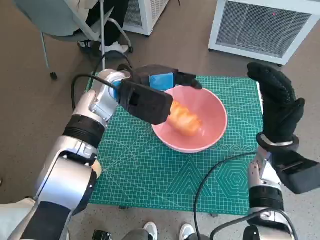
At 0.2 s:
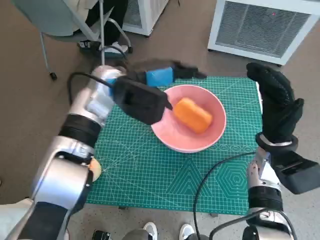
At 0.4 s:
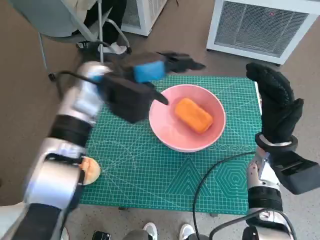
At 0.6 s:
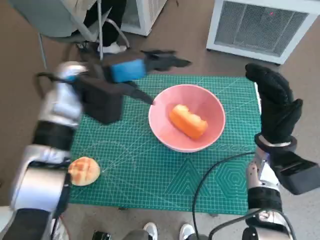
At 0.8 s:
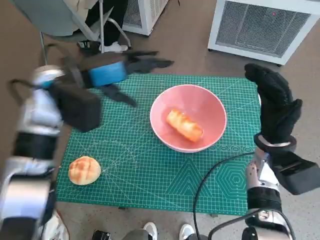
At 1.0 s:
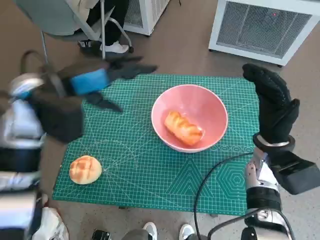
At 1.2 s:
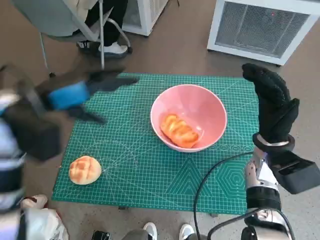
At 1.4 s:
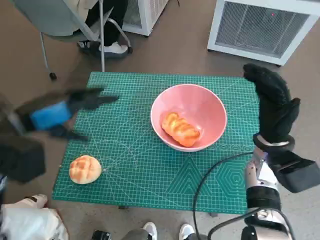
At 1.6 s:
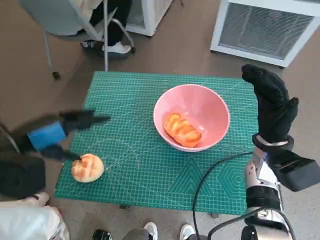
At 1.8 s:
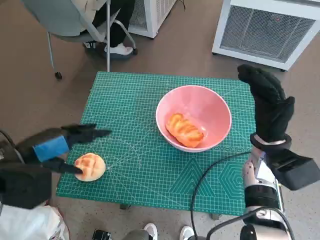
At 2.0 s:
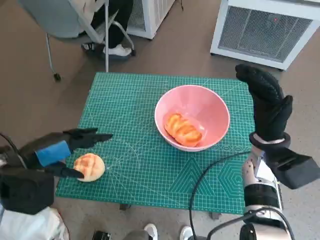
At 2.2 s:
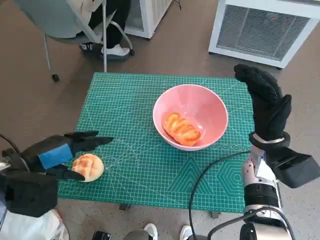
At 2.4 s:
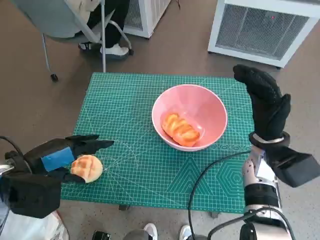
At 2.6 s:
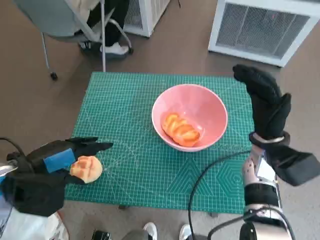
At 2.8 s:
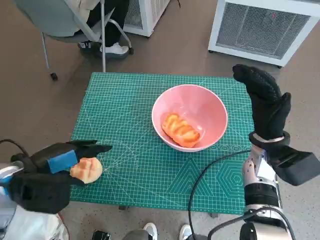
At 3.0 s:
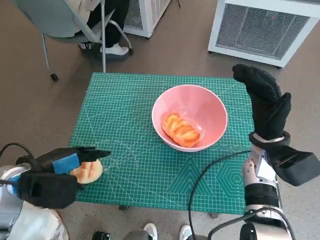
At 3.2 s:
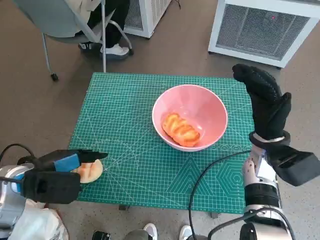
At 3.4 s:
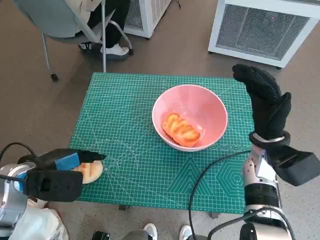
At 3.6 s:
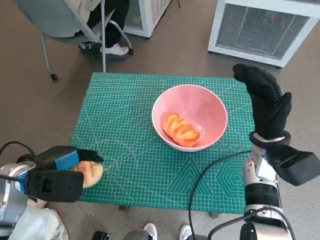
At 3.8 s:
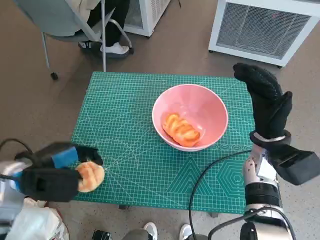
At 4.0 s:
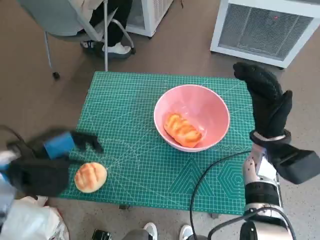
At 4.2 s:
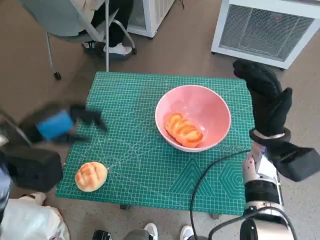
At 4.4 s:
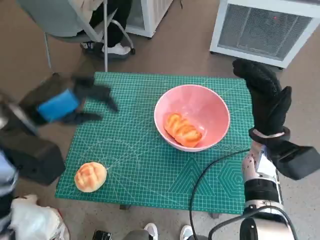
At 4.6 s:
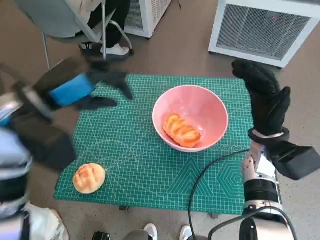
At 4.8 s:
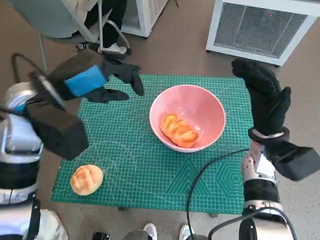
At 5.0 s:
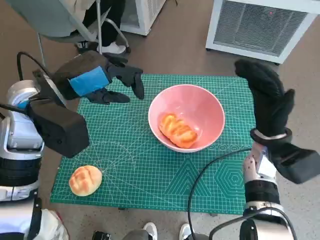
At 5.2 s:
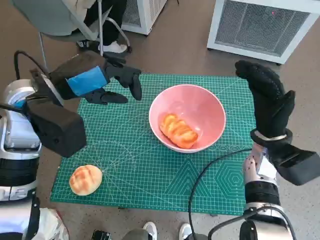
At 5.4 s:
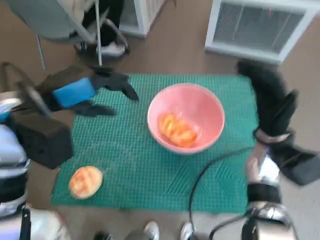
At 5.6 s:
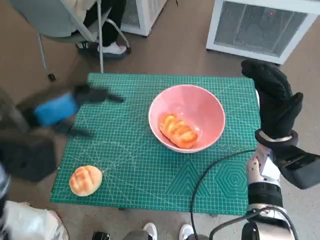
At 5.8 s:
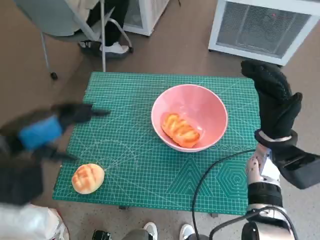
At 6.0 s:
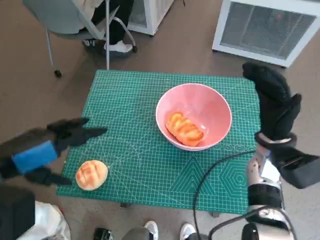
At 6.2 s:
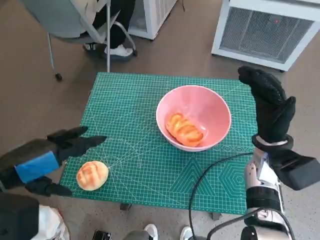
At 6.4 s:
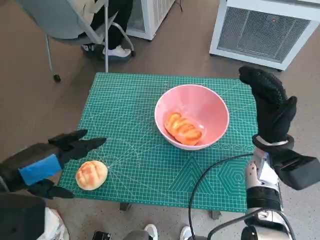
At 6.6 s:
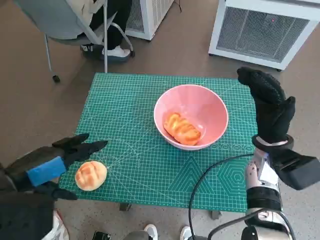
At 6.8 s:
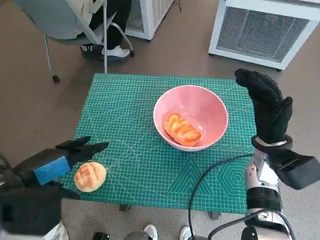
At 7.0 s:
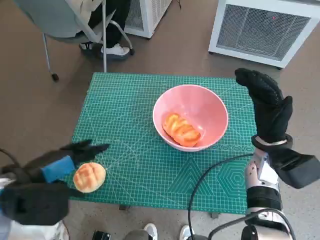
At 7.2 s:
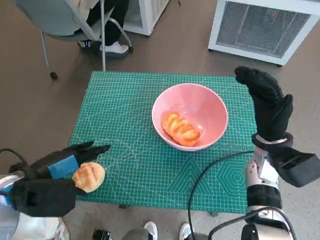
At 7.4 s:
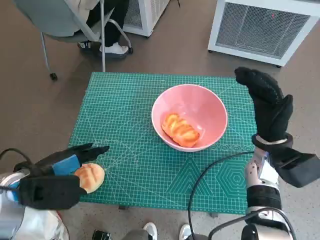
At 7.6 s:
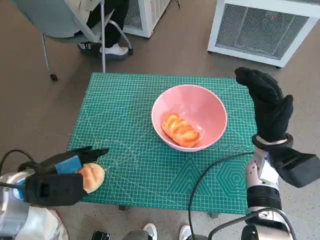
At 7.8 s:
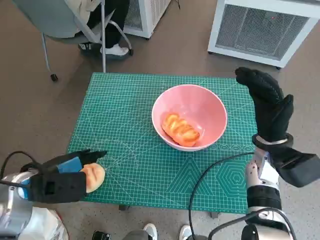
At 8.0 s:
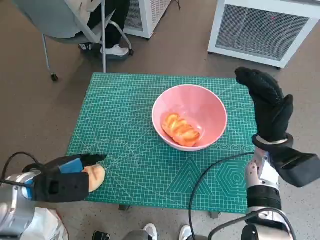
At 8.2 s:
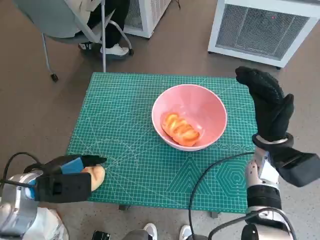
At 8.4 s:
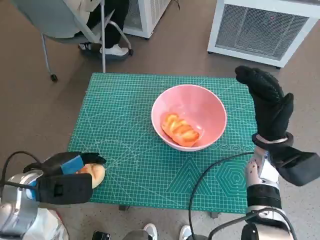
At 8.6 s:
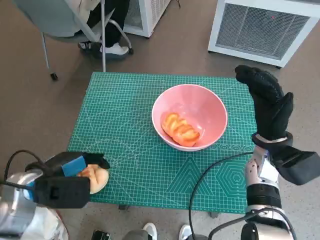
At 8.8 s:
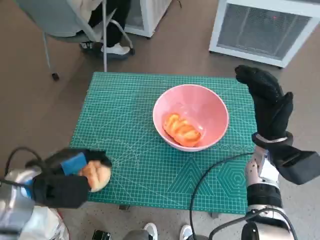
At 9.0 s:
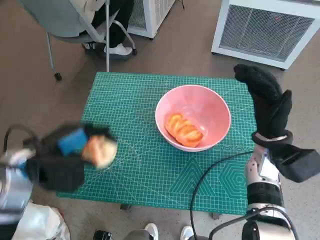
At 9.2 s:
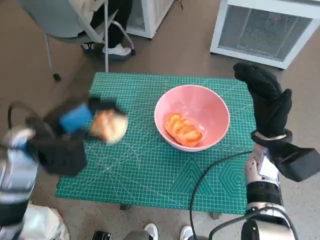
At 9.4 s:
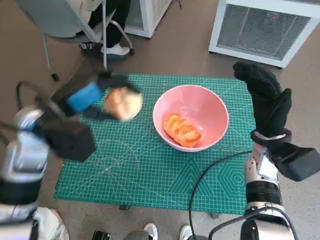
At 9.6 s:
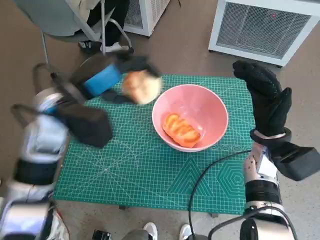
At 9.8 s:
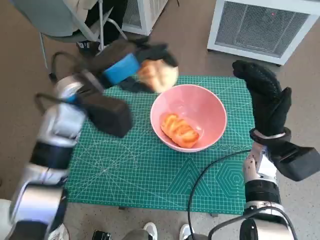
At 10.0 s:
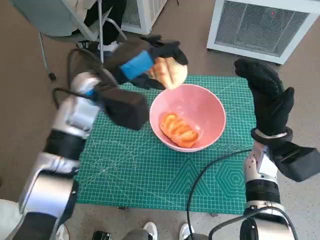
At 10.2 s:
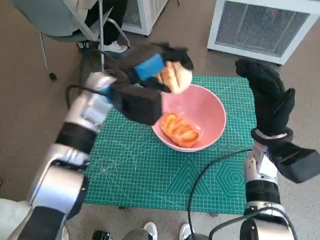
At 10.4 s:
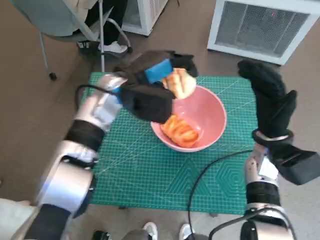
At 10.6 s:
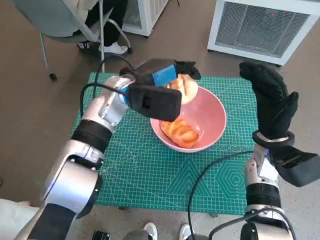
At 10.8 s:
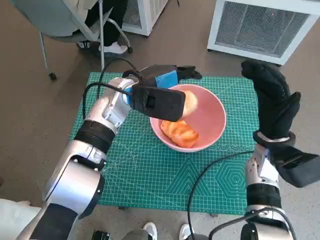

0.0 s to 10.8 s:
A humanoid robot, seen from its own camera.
Task of the whole recording: Push the bowl to the center of the table and put the bread into the bowl.
Step, 0.6 to 8.2 s: Grasp the round bread with left hand.
0.0 to 1.6 s: The left hand travels to the left and backward by about 20 cm.
1.6 to 3.0 s: The left hand shifts approximately 5 cm downward.
3.0 to 4.6 s: The left hand moves upward, forward and to the right, roughly 15 cm.
4.6 to 6.2 s: The left hand shifts approximately 10 cm backward.
6.2 to 7.8 s: The left hand heads downward, covering about 10 cm.
7.8 to 9.2 s: The left hand goes approximately 5 cm upward.
9.2 to 10.8 s: The left hand shifts roughly 20 cm to the right and forward.

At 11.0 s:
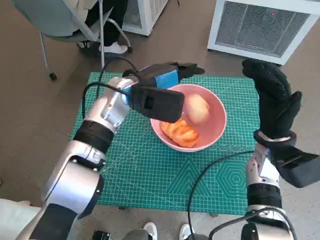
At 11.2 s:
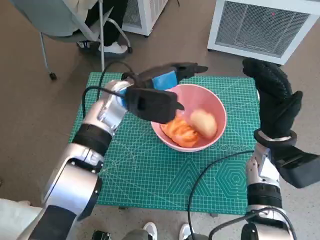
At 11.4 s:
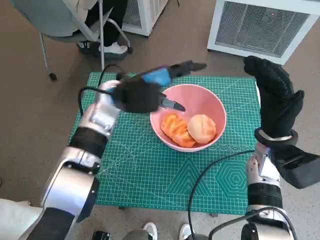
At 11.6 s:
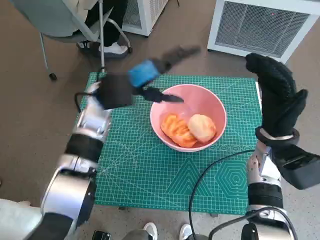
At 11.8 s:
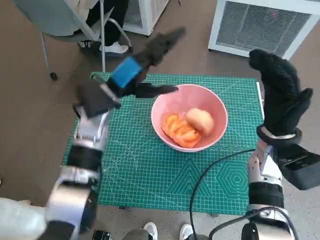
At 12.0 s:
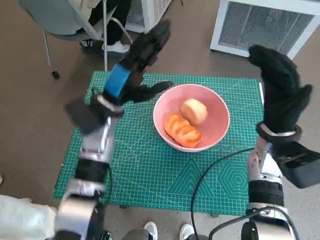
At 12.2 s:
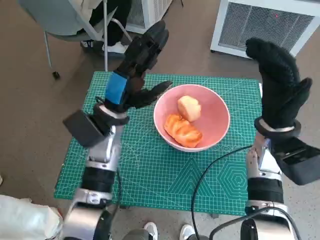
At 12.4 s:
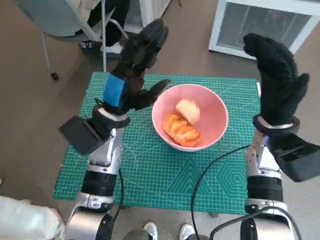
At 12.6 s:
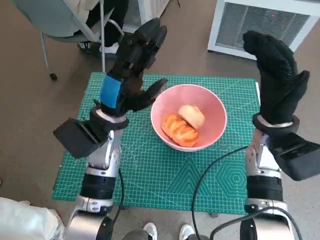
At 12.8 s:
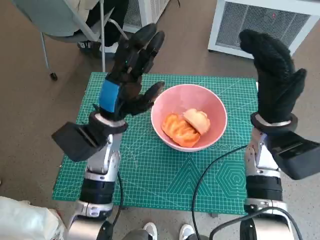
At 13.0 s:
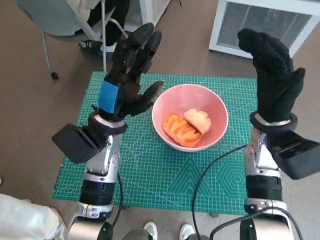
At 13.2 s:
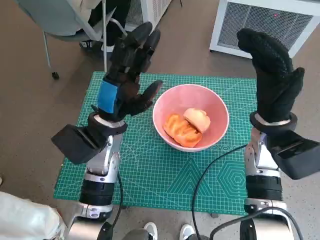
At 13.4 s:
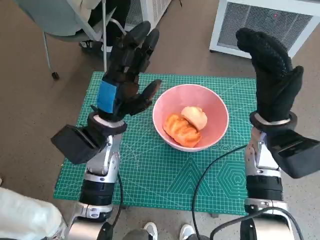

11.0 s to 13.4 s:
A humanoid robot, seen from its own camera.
Task of the whole recording: Push the bowl to the center of the table and put the bread into the bowl.
11.0 to 12.2 s: The left hand changes place by roughly 10 cm.

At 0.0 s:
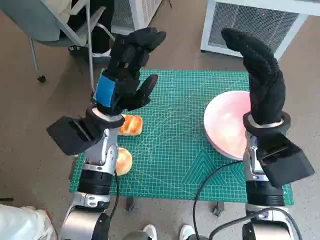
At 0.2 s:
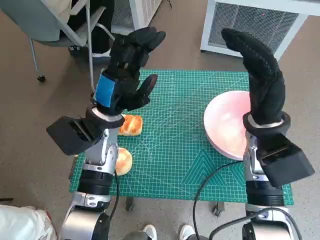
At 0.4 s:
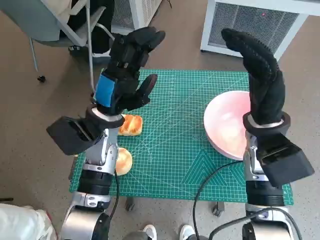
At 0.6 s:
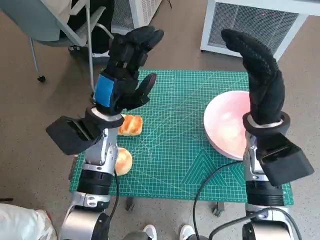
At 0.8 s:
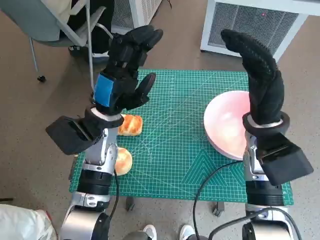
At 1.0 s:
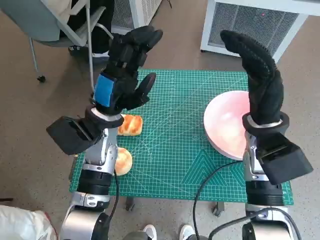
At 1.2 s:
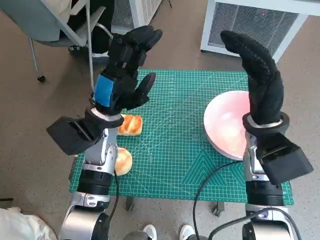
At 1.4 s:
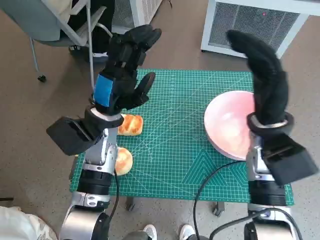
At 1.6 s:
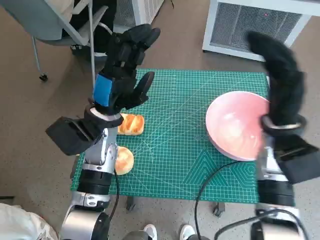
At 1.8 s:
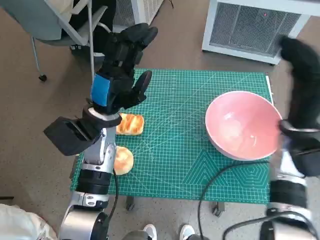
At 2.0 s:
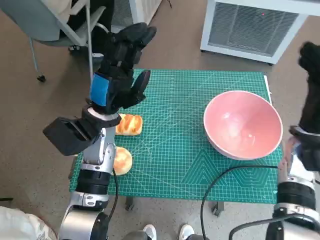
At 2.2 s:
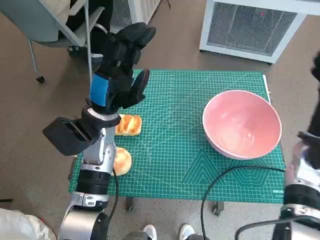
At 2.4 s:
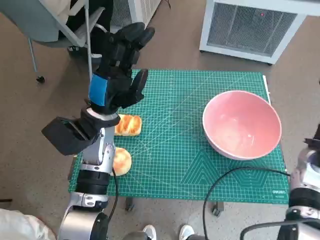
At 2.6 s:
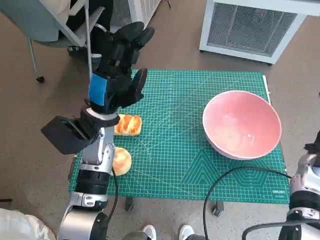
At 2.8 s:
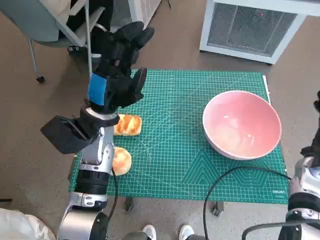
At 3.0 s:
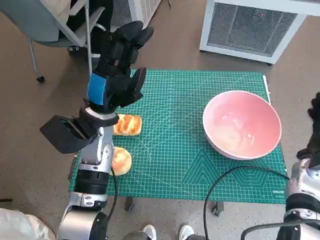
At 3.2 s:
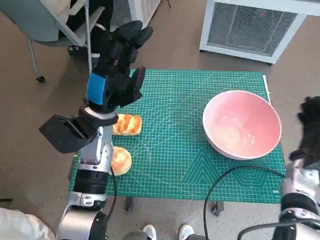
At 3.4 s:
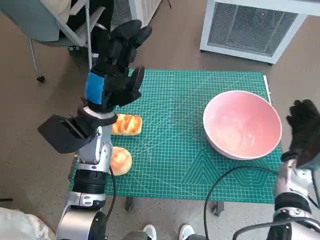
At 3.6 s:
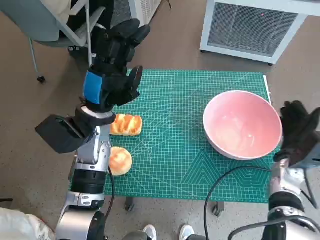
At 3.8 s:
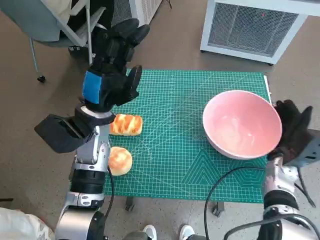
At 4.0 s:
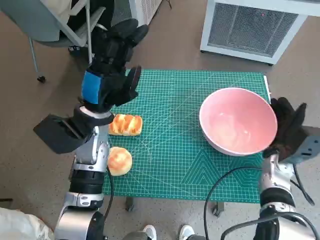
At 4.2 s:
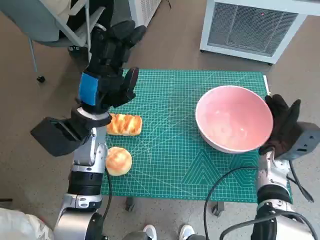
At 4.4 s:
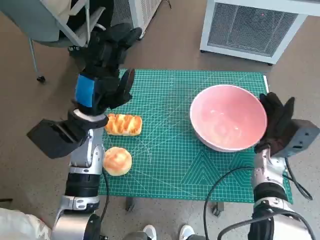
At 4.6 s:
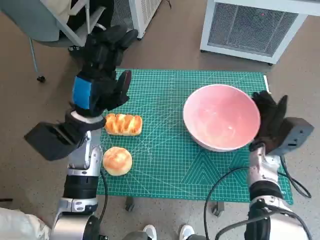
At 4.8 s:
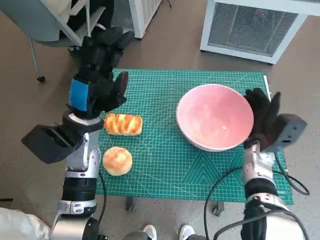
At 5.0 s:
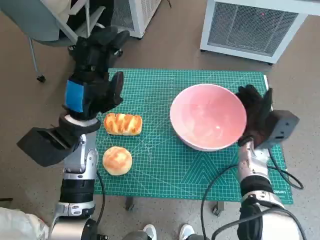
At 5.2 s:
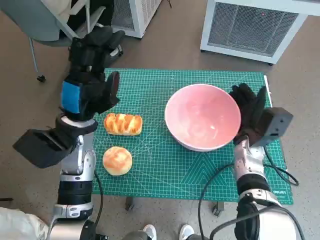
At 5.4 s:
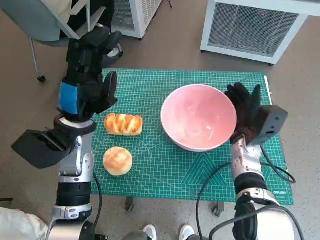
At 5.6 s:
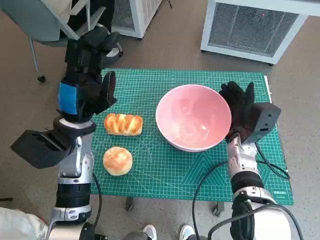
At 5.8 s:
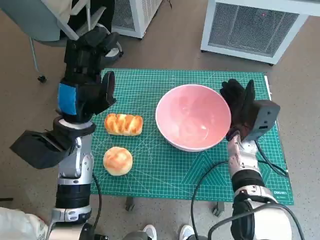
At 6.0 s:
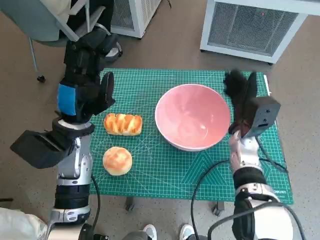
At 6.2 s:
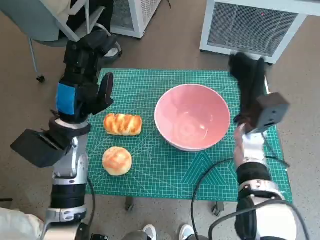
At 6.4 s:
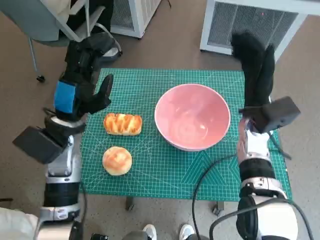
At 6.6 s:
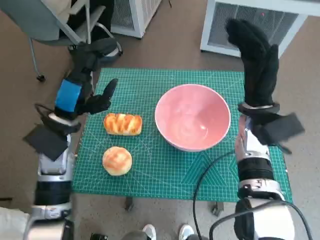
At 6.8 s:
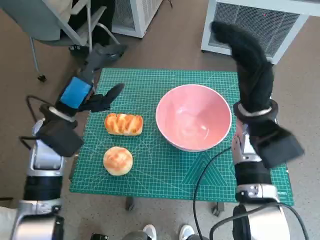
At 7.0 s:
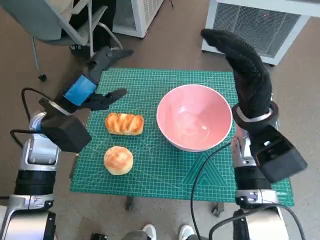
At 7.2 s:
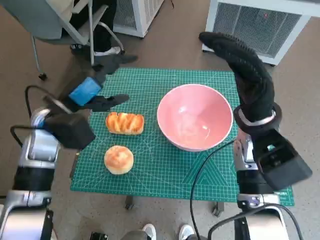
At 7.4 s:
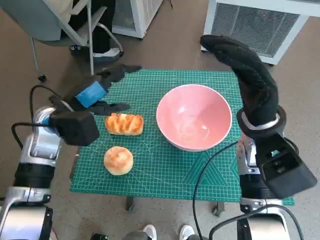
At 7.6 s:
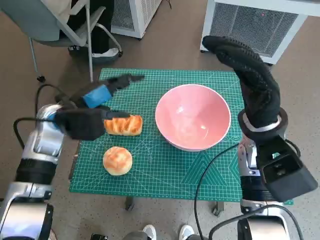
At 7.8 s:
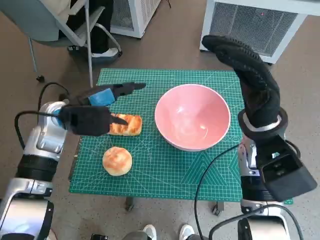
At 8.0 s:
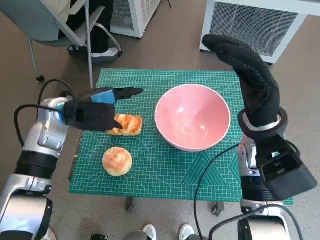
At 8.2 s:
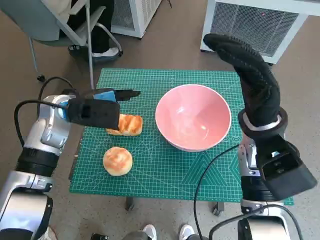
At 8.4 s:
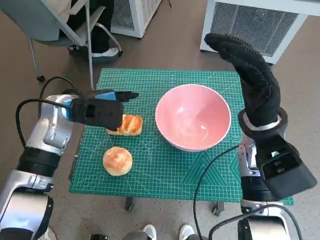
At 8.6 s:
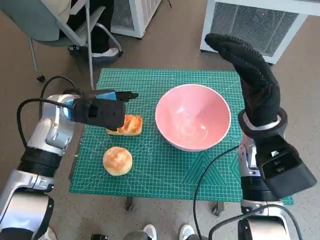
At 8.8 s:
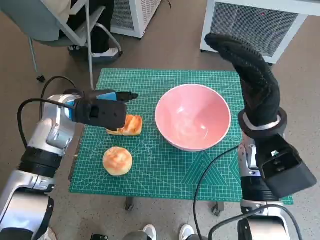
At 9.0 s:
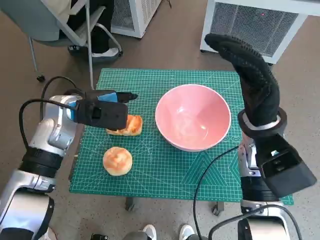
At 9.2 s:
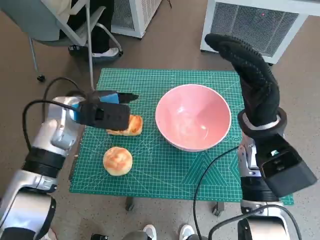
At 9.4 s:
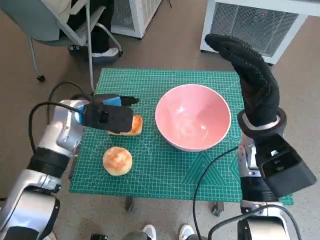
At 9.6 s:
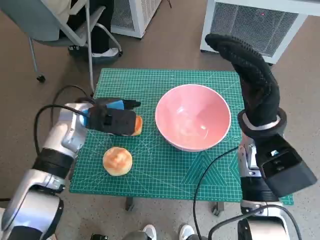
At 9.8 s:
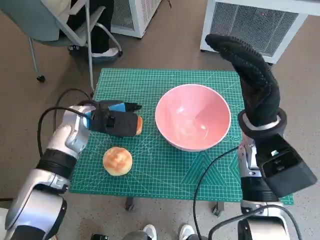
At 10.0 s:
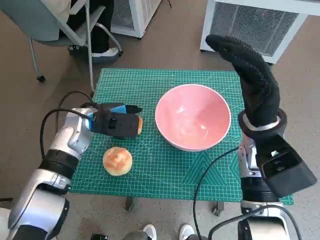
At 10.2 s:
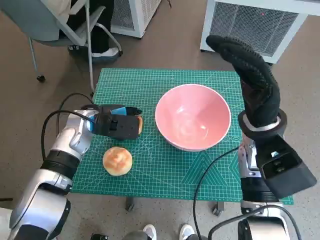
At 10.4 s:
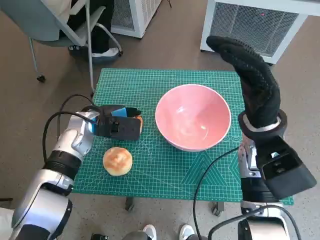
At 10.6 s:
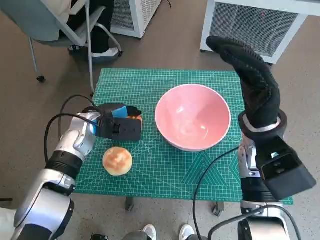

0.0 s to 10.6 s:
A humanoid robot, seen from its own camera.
Task of the whole recording: Push the bowl to the center of the table and put the bread into the bowl.
Step, 0.0 to 6.2 s: Move the pink bowl to the center of table with right hand.
1.6 to 3.0 s: The right hand heads to the right and downward, covering roughly 15 cm.
3.0 to 4.6 s: The right hand moves to the left, roughly 10 cm.
4.6 to 6.0 s: The right hand heads to the left, covering roughly 5 cm.
6.0 to 7.6 s: The right hand goes some 10 cm upward. Meanwhile the left hand changes place by about 5 cm.
9.0 to 10.6 s: The left hand travels downward by about 5 cm.
